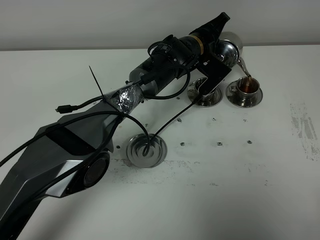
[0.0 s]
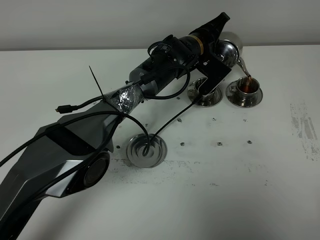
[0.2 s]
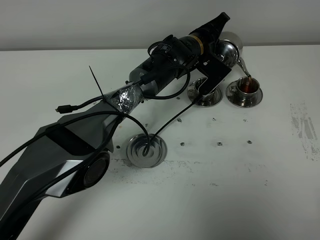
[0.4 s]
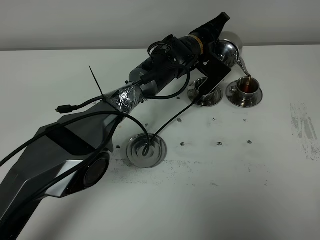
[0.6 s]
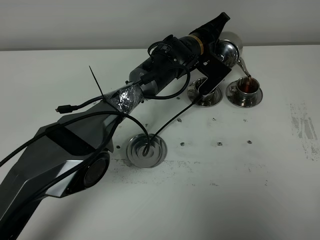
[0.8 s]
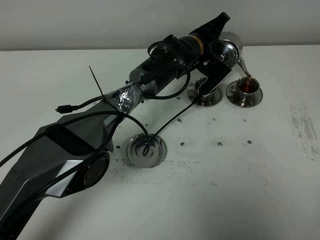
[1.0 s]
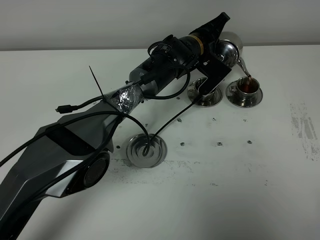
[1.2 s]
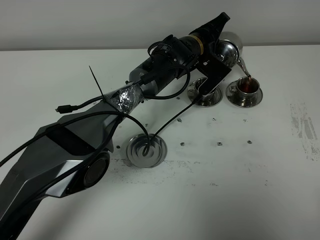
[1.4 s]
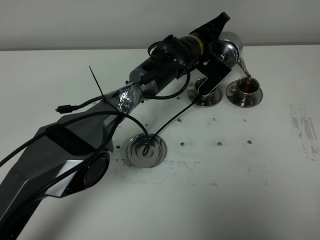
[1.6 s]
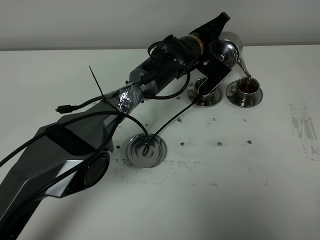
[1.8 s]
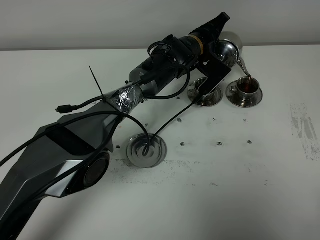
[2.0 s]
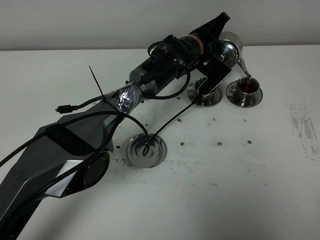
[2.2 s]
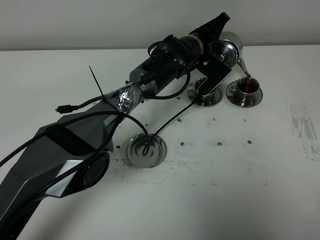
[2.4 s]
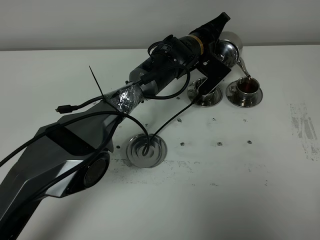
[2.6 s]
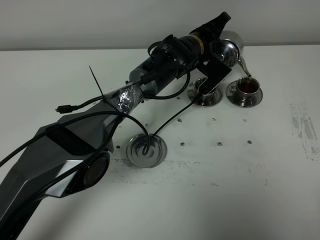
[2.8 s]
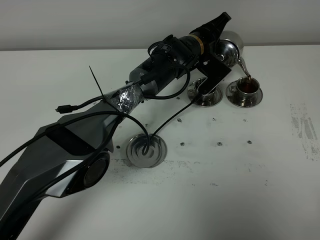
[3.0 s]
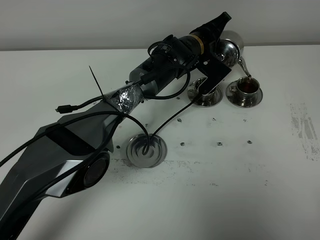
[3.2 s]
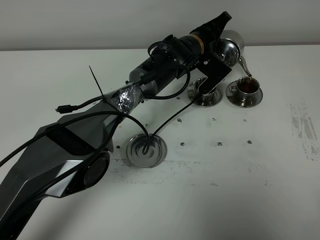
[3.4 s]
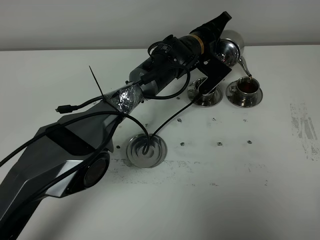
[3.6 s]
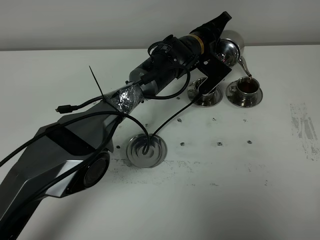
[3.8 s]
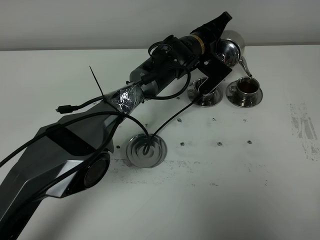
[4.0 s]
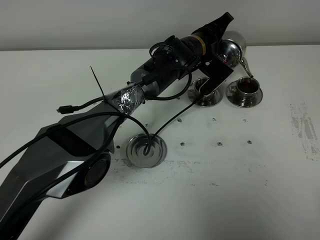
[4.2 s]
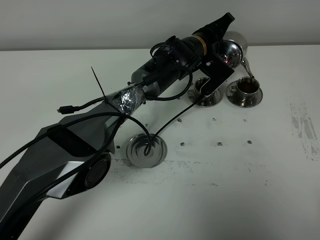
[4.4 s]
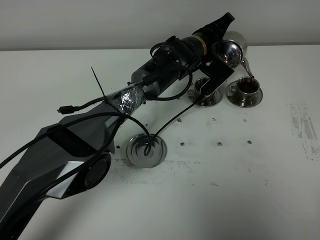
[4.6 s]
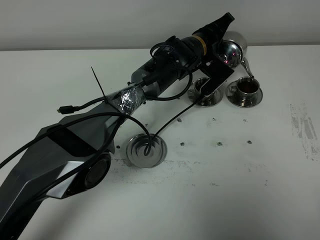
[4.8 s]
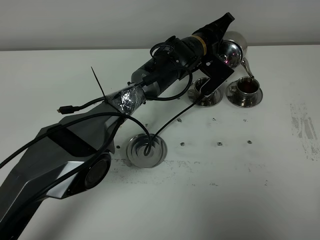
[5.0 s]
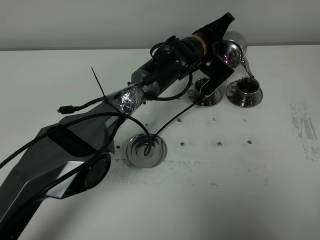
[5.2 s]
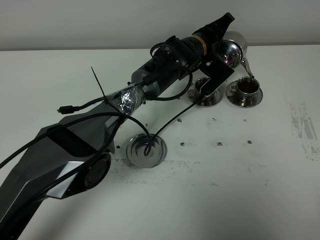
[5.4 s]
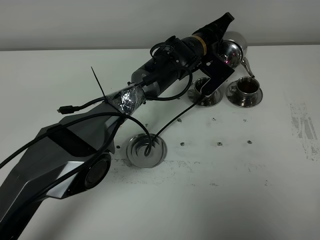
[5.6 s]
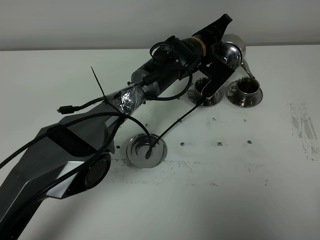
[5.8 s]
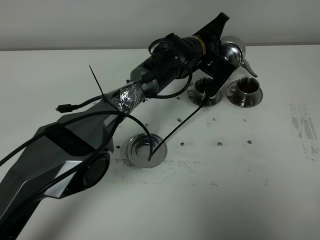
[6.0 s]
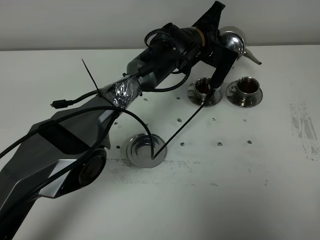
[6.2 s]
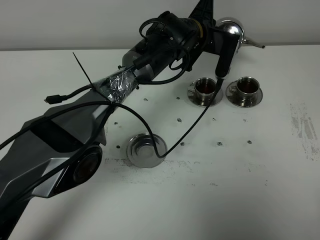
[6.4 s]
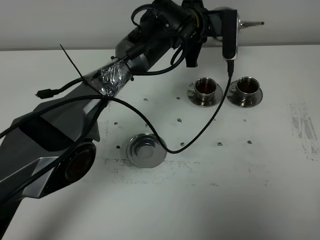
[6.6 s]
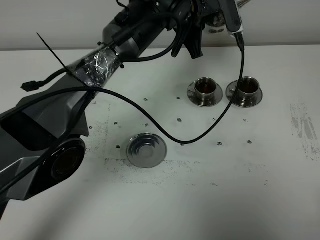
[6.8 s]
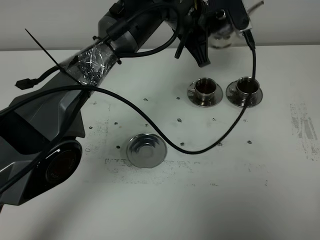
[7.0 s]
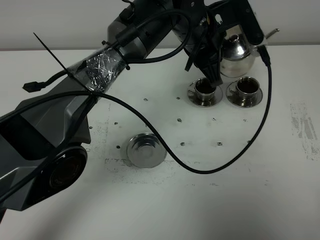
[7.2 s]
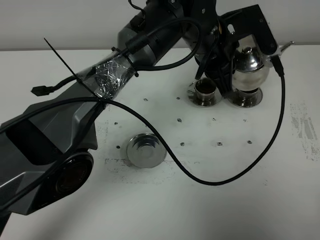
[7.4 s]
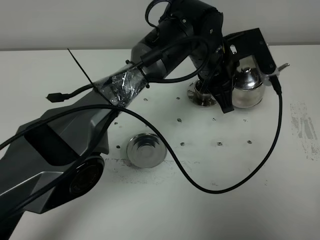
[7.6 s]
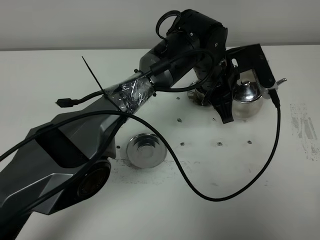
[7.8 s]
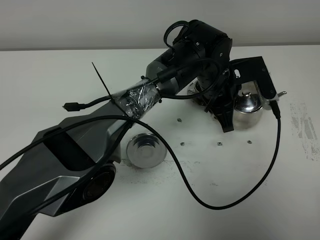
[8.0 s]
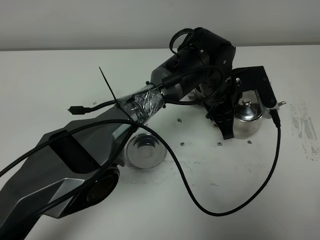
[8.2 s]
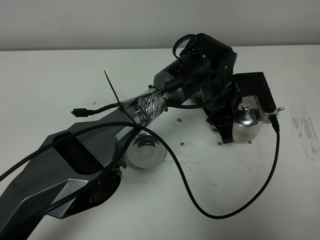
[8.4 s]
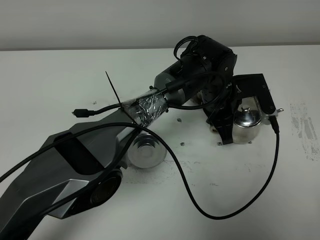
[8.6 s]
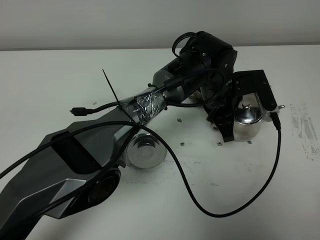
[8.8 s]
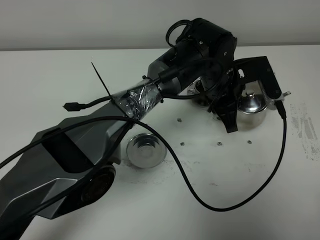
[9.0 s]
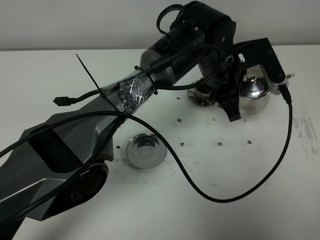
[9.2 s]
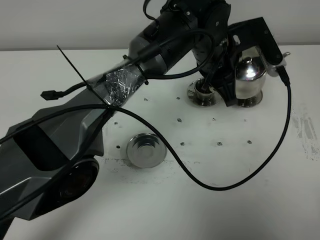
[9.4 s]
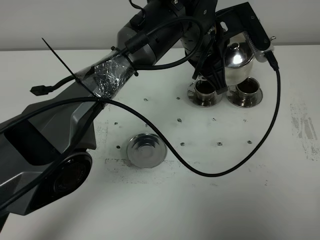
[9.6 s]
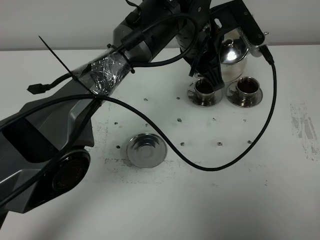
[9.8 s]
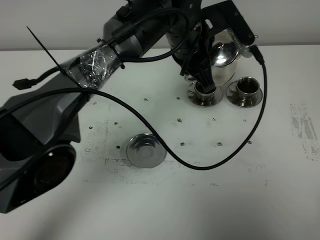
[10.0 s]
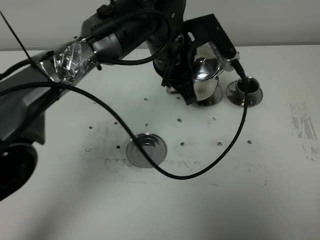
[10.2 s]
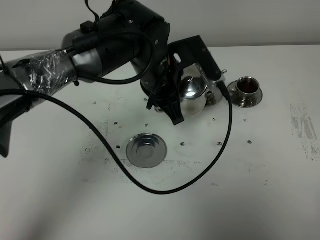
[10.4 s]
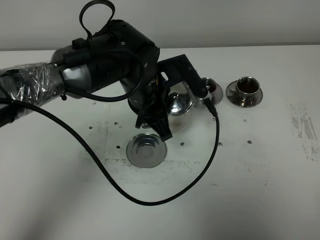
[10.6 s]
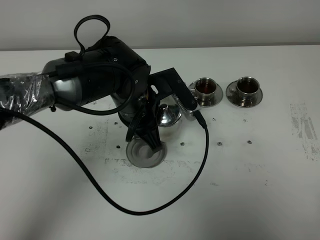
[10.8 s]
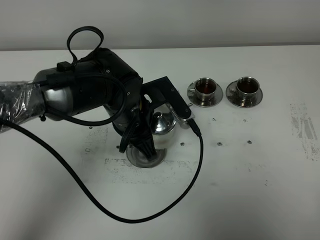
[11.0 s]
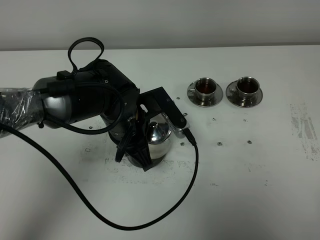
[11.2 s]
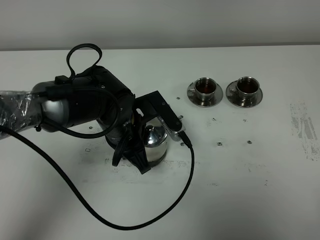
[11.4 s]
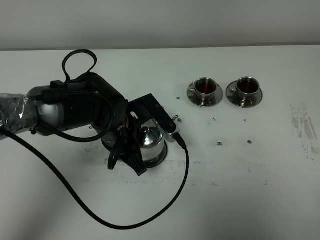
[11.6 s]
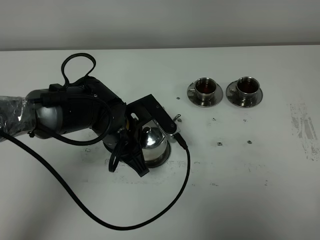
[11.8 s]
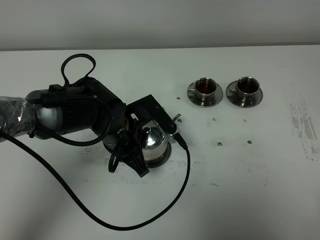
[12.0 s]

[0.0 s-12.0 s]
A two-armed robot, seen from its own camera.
Task of the whole recording: grasp the stainless steel teapot and pour the tea into the two stainless steel teacups one by one, put the stainless steel teapot back in its original place.
Step, 0.0 to 6.2 s: Pour tea into the teacup with the left gripper.
0.0 to 4.4 s: Both grippers stay about where they are.
4.4 to 6.0 s: The grippers move only a little.
6.0 to 7.6 s: The left gripper moves backward and upward, about 10 cm.
9.0 to 10.4 s: The left gripper shifts approximately 10 cm to the left.
10.4 to 12.0 s: The left gripper travels downward, to the left and backward by roughly 10 cm.

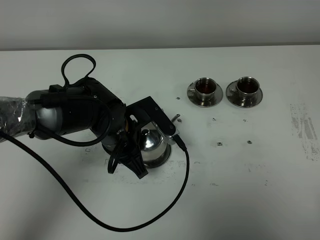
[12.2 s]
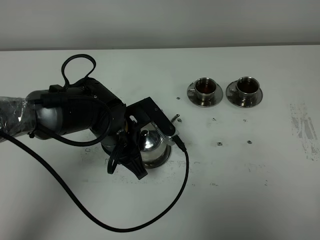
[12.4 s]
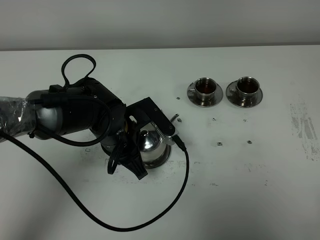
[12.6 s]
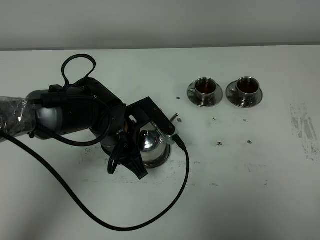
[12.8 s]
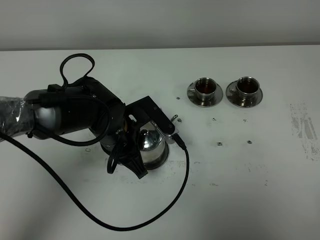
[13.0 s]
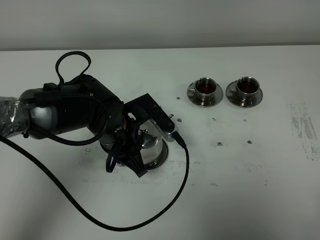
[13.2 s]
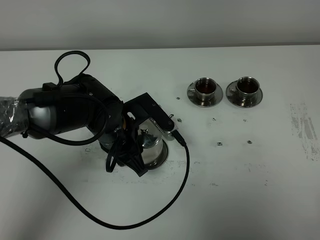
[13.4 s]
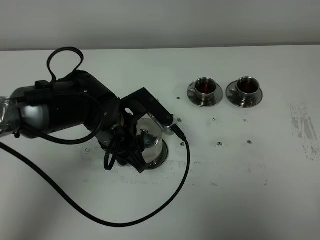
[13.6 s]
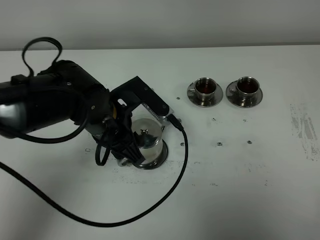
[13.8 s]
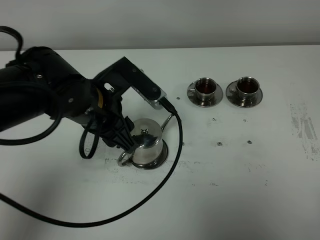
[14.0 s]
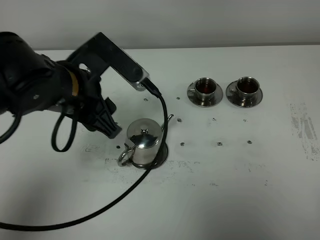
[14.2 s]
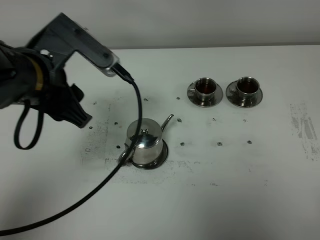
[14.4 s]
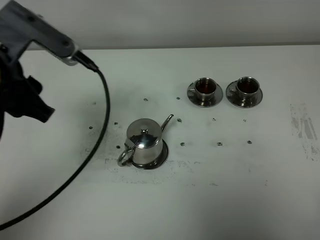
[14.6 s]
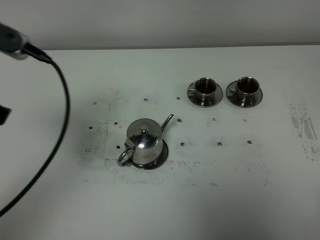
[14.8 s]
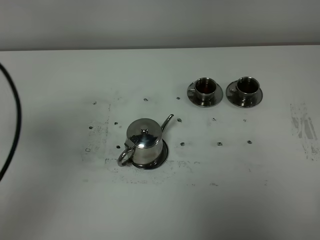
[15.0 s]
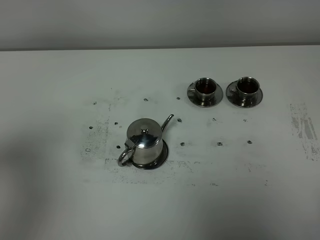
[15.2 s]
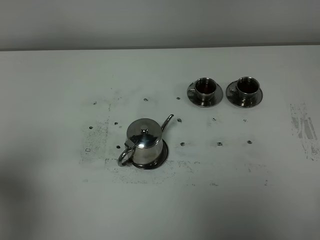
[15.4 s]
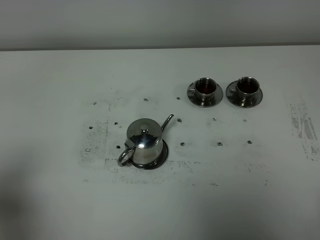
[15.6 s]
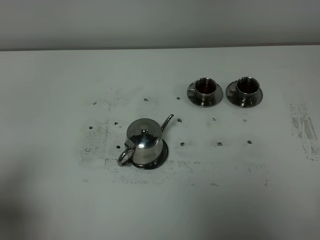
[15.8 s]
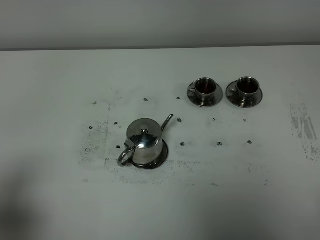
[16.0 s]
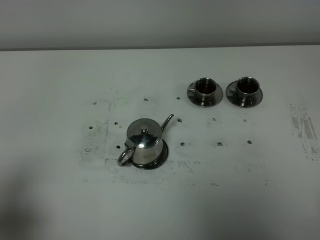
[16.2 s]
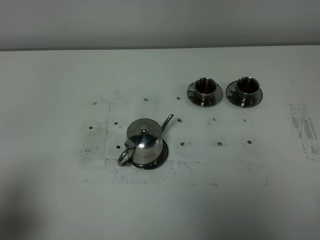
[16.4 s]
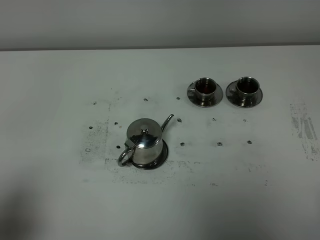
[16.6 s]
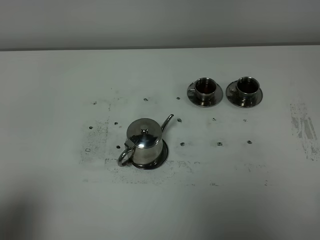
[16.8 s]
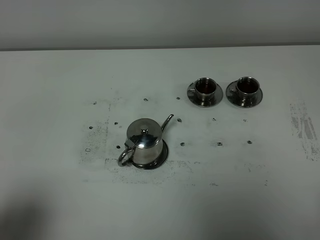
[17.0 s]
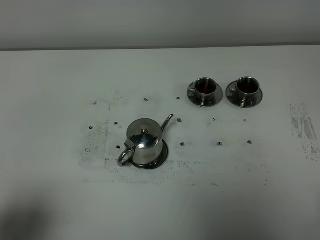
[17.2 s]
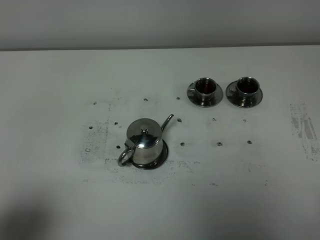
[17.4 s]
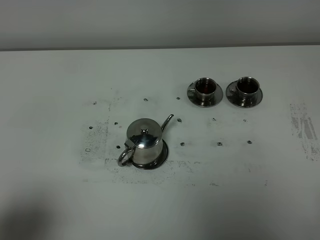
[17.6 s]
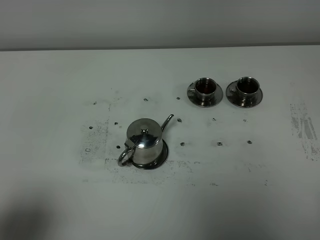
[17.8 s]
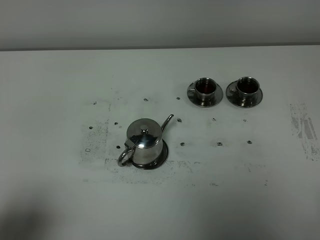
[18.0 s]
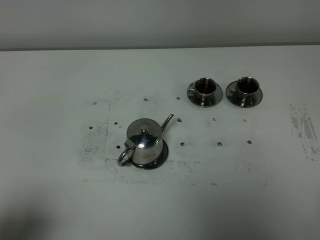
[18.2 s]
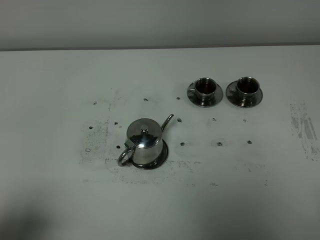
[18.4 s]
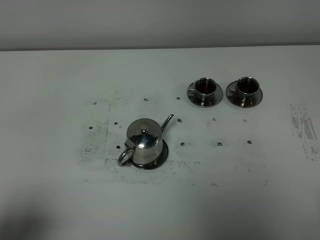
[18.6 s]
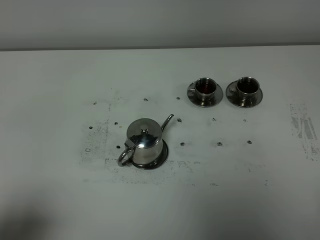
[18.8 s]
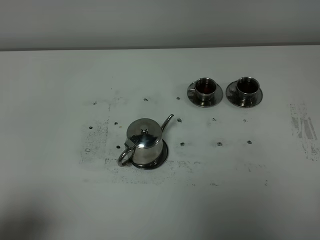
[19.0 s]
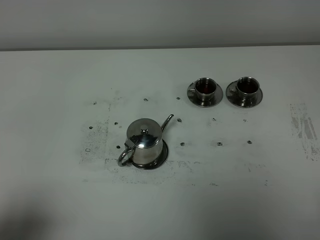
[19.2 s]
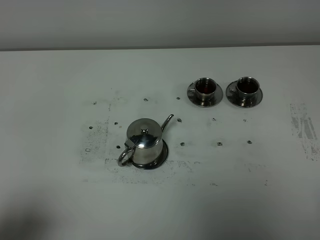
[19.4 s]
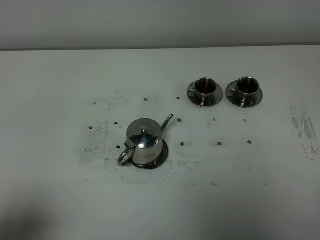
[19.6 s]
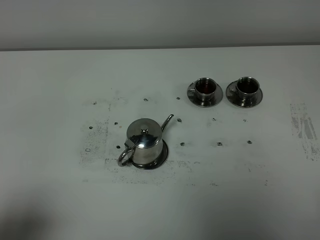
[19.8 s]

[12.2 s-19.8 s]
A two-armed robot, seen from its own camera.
Task of the whole recording: grasp the stainless steel teapot and pour the tea into the two stainless steel teacups one by one, put the stainless steel teapot back in its original place.
12.2 to 13.8 s: The left gripper moves upward, some 5 cm, and opens.
13.8 to 15.2 s: The left gripper travels to the left, backward and upward by approximately 30 cm.
15.2 to 16.8 s: The left gripper goes approximately 15 cm backward and downward.
18.2 to 19.8 s: Both grippers stay about where they are.

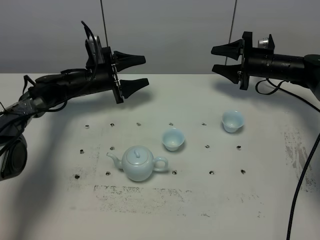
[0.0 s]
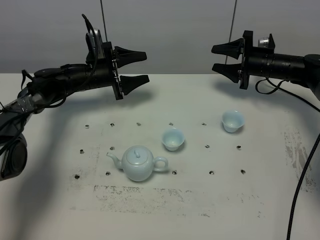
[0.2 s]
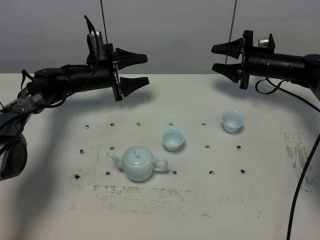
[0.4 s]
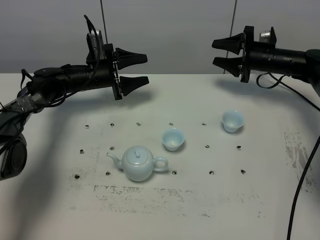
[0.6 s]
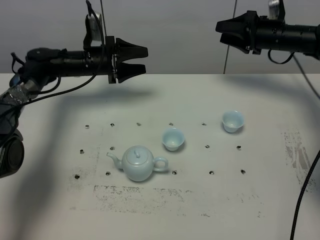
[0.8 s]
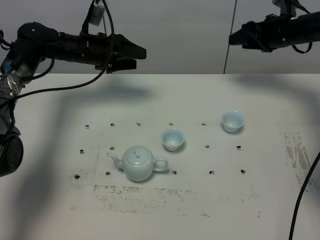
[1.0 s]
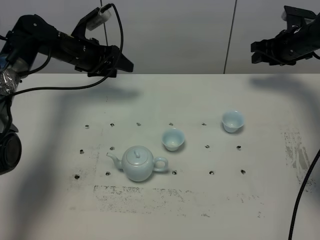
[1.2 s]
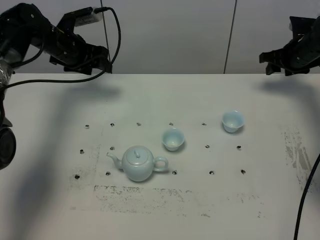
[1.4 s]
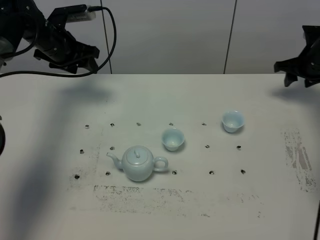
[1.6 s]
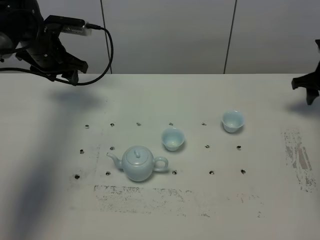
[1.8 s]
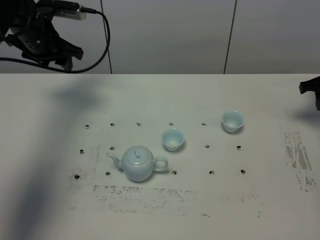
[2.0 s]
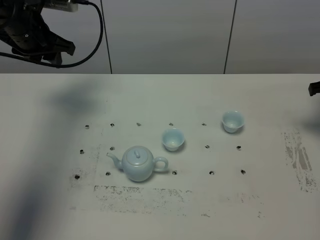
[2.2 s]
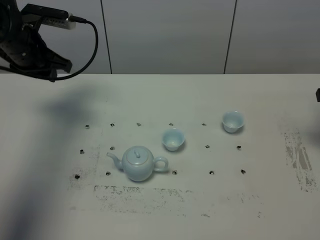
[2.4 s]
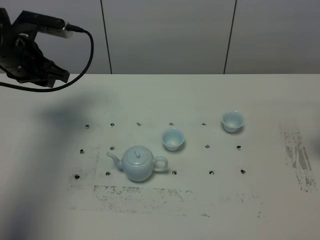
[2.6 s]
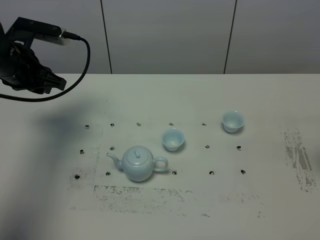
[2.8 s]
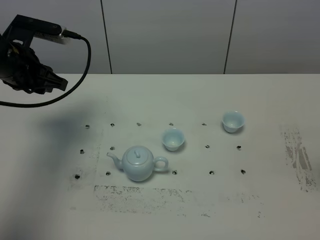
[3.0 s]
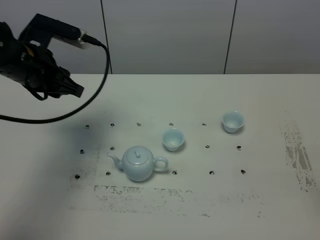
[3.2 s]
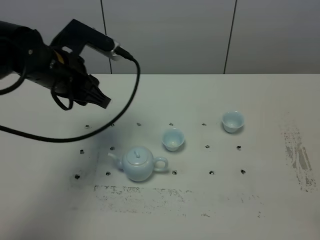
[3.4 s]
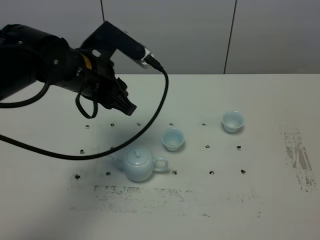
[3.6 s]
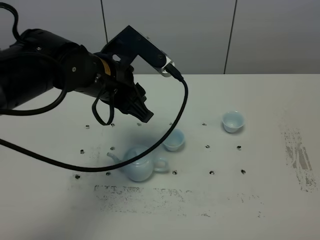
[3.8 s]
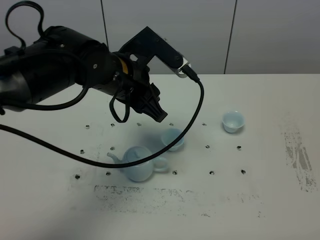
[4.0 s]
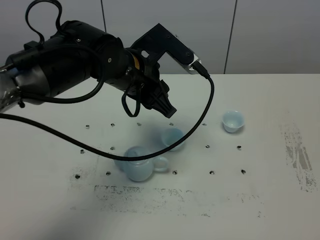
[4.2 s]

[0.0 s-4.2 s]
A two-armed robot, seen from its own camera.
Task of the whole recording: grasp the blue porcelain teapot and pour the tea into the two blue porcelain teacups one by one, put the blue porcelain teapot back in its original place.
0.0 to 1.4 s: The left gripper moves upward, some 10 cm. The right gripper goes roughly 5 cm to the right.
1.4 to 2.8 s: The left gripper shifts some 15 cm backward, while the right gripper goes some 30 cm backward and upward.
2.8 to 4.2 s: The left gripper is displaced to the right by about 20 cm. Meanwhile the right gripper heads backward, covering approximately 30 cm.
